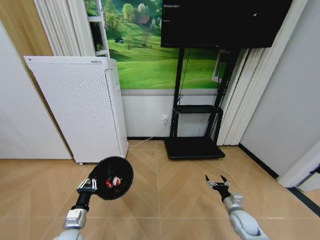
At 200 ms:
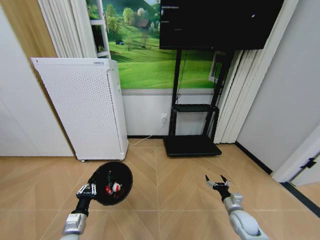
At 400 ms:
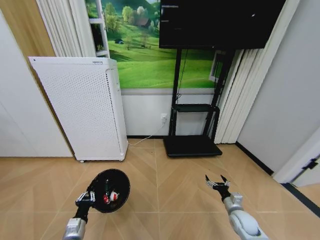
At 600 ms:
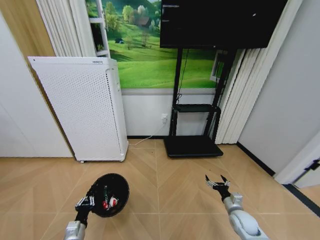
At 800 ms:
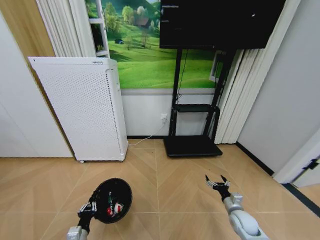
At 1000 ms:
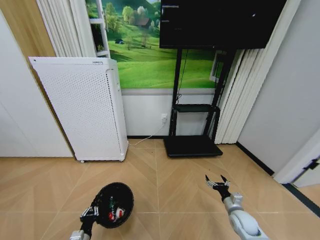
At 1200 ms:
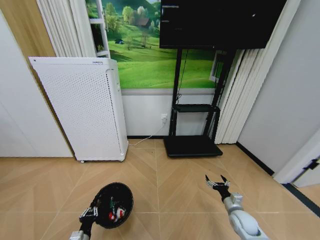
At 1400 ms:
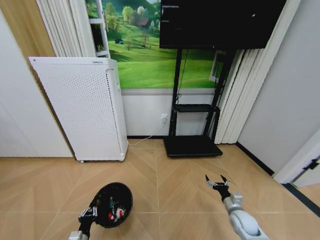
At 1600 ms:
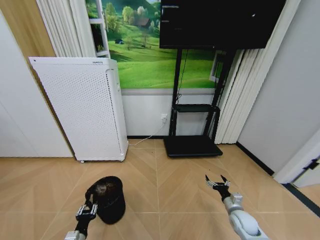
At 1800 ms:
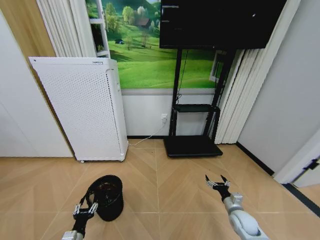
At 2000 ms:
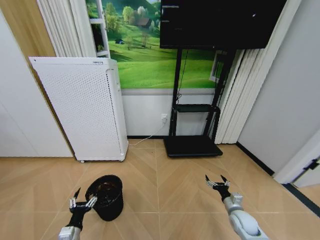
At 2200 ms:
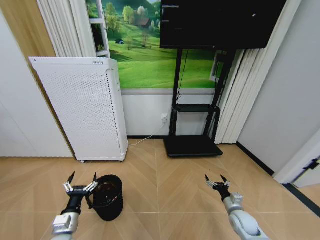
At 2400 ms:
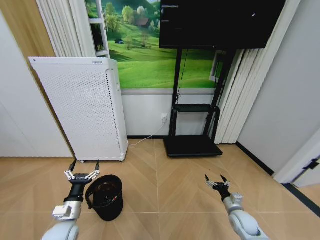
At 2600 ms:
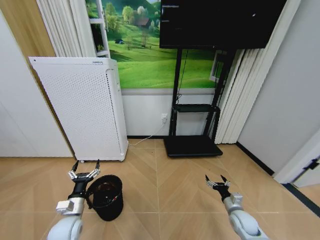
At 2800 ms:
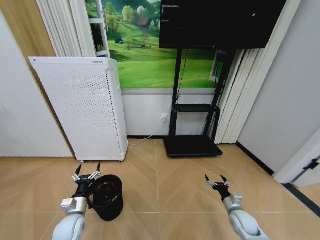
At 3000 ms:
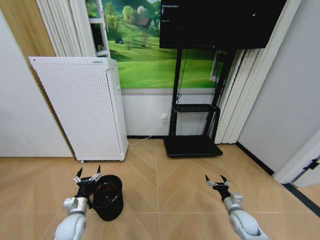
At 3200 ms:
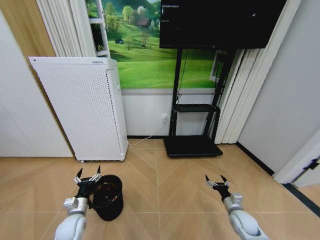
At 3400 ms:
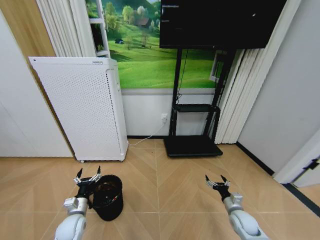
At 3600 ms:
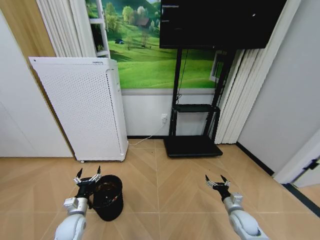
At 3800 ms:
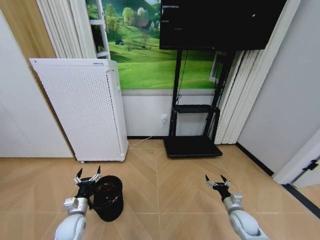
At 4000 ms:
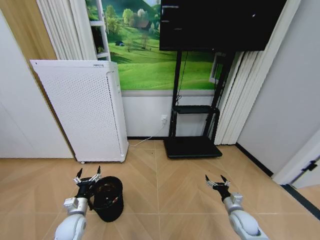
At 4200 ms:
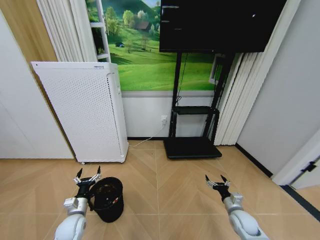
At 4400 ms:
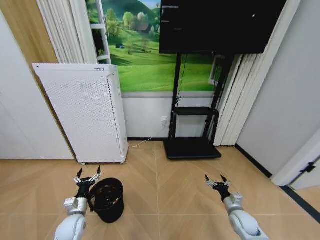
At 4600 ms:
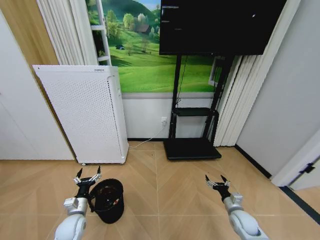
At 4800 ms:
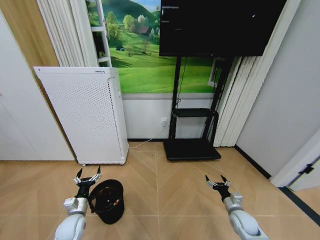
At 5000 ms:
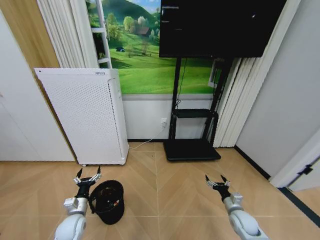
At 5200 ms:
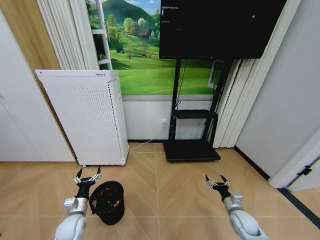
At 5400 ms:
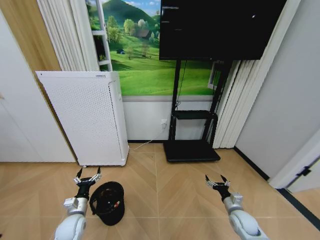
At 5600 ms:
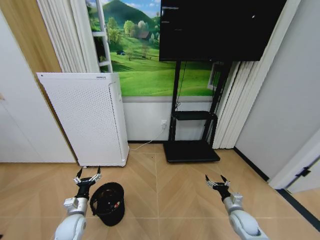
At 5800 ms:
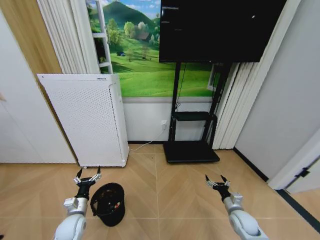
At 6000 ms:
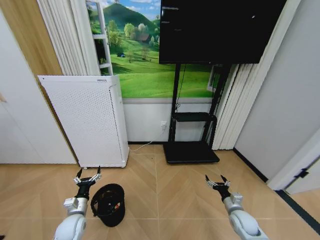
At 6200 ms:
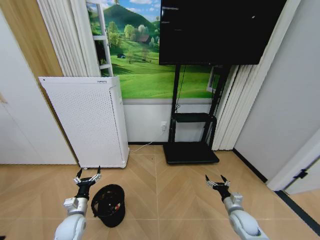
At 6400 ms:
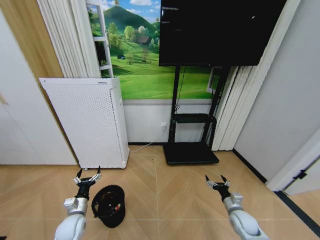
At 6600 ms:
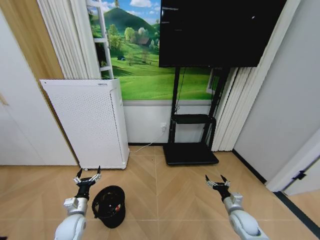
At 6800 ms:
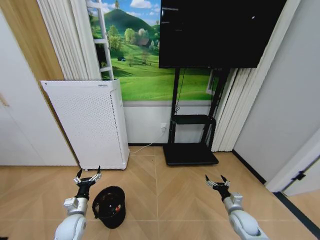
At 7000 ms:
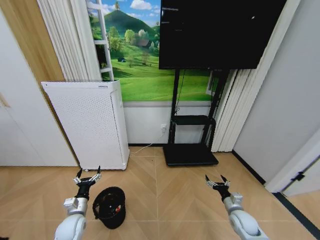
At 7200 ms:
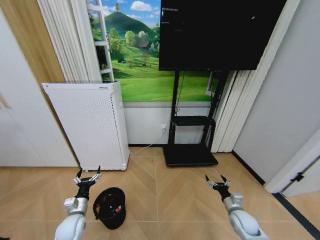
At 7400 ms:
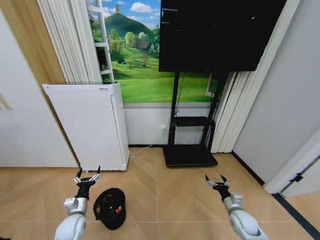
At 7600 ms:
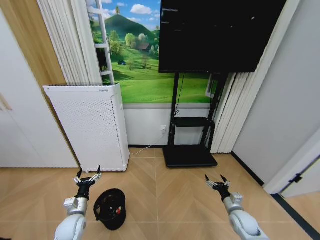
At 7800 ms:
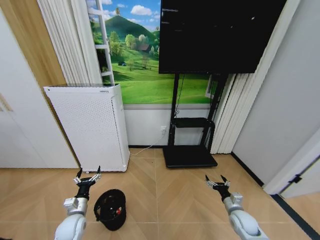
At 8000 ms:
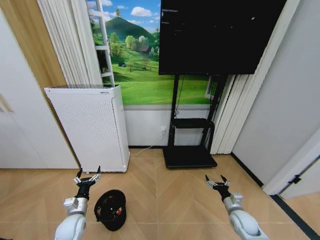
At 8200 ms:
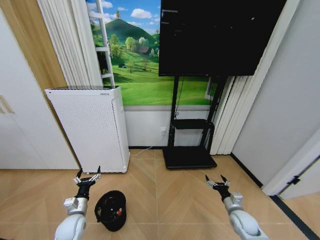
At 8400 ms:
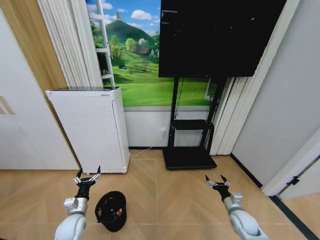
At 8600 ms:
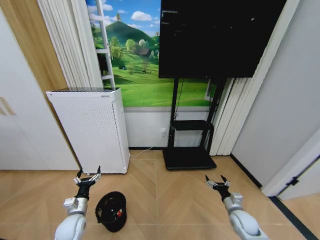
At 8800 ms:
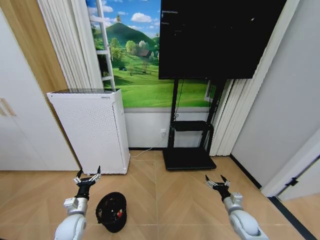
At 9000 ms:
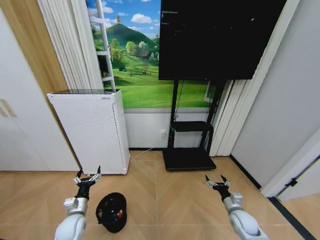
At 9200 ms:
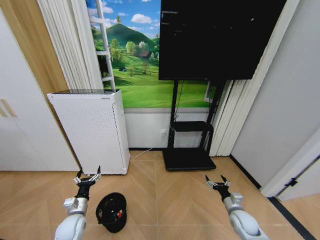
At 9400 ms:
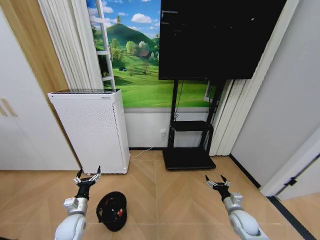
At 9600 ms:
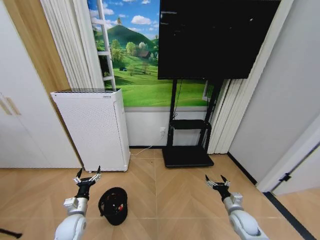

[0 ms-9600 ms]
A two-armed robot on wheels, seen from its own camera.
Task of the whole recording: Pick up the trash bin and place the garbage on the floor into it.
0 ms to 1600 ms: The left gripper goes some 10 cm downward and backward.
1600 ms to 3200 ms: The left gripper is displaced forward by approximately 10 cm, and opens up.
3200 ms to 9600 ms: Both grippers stay about where they are.
